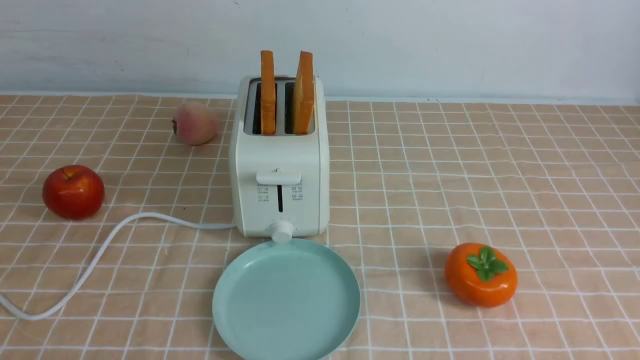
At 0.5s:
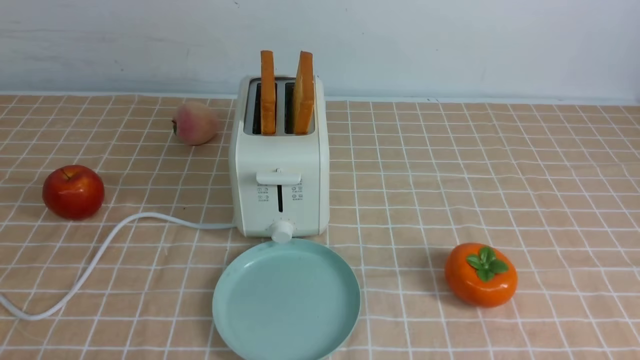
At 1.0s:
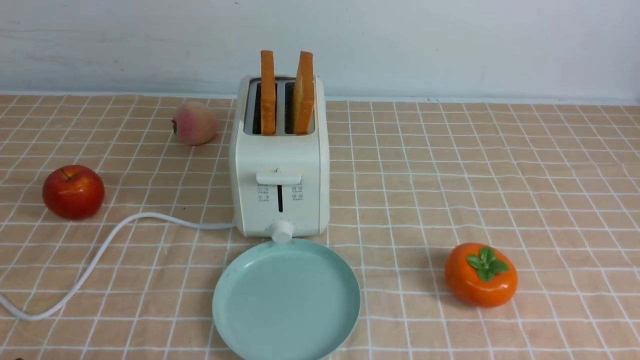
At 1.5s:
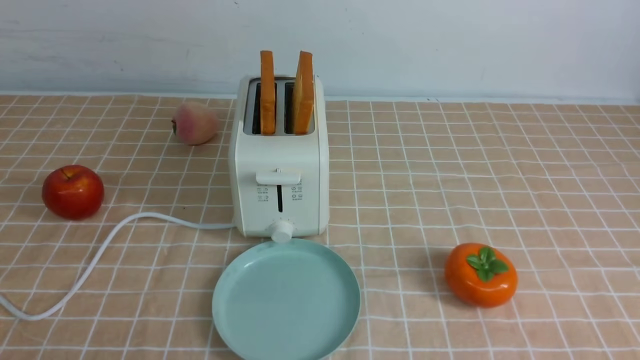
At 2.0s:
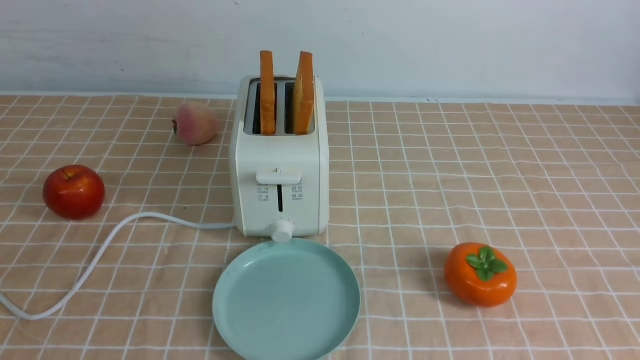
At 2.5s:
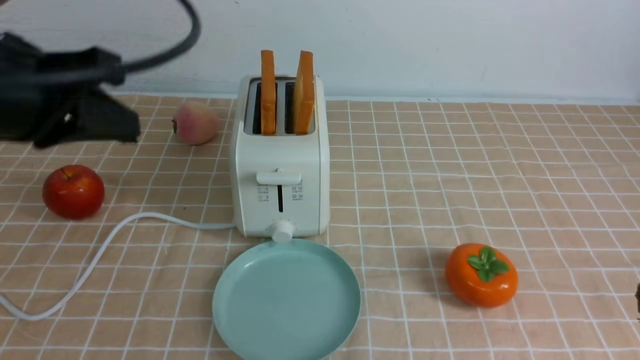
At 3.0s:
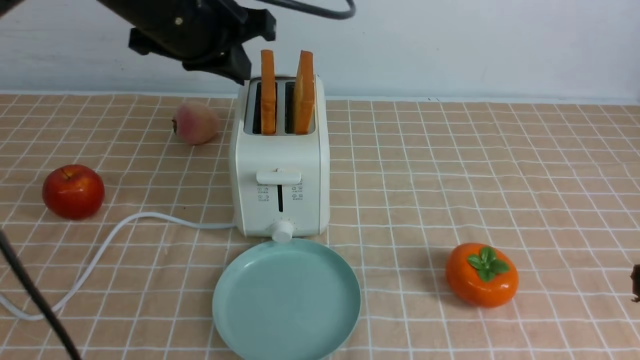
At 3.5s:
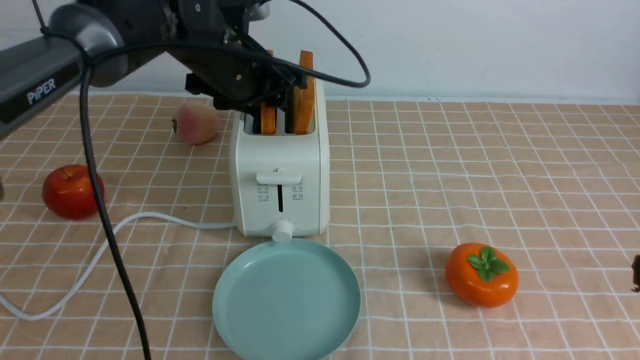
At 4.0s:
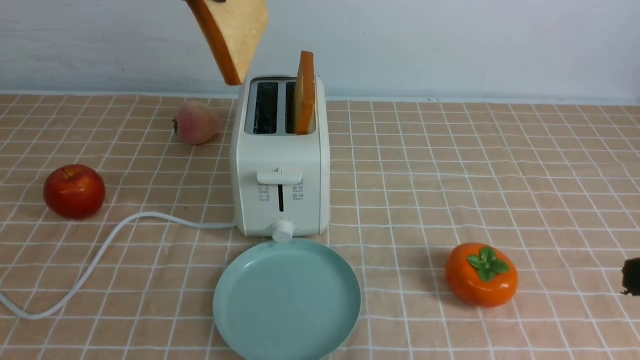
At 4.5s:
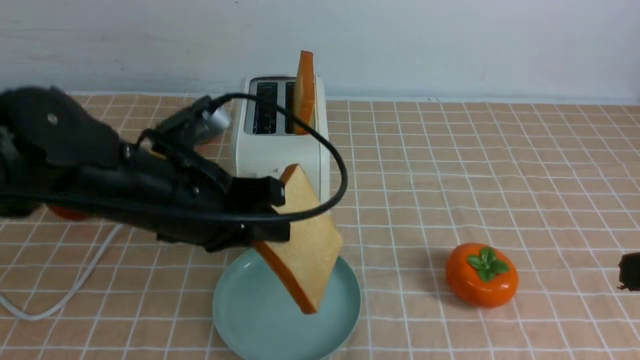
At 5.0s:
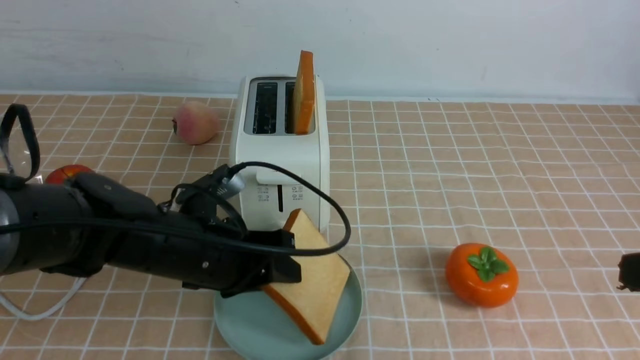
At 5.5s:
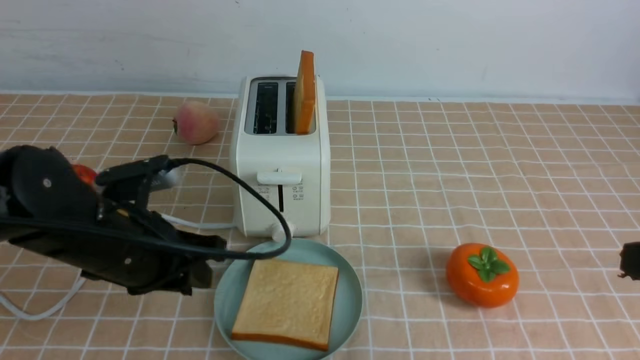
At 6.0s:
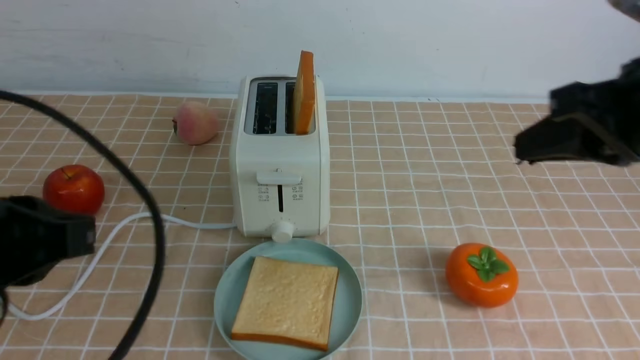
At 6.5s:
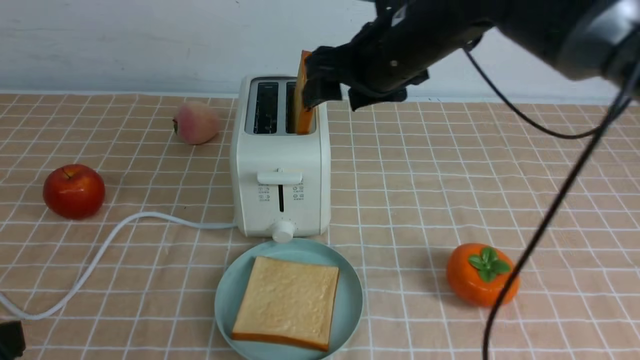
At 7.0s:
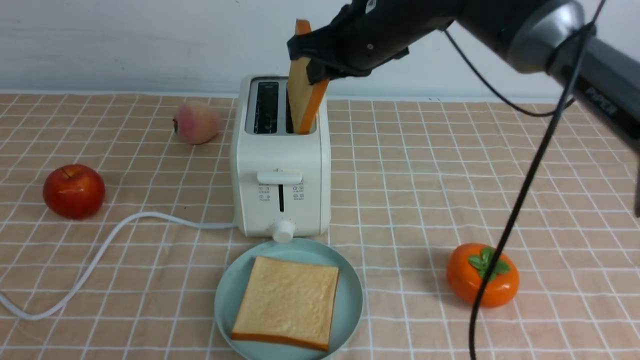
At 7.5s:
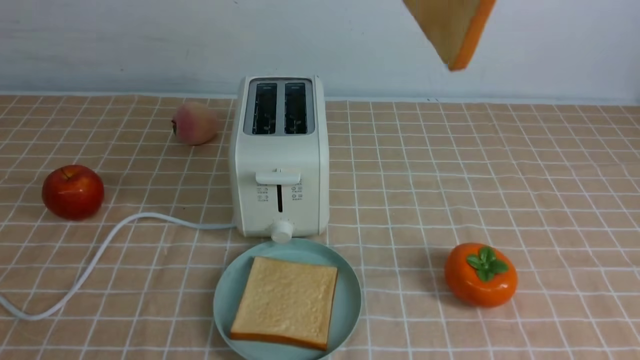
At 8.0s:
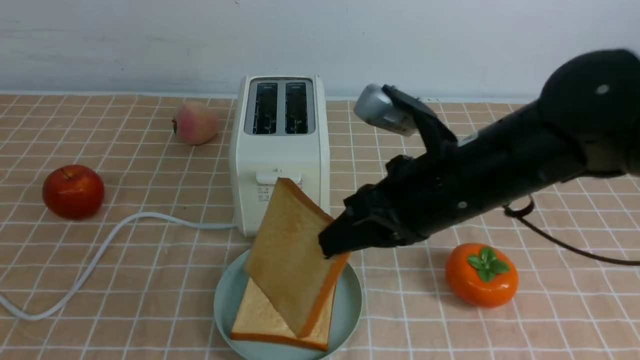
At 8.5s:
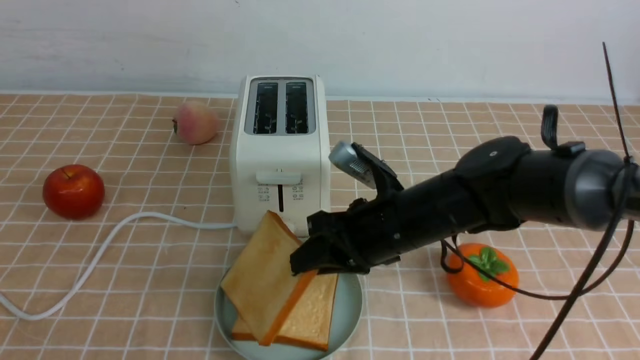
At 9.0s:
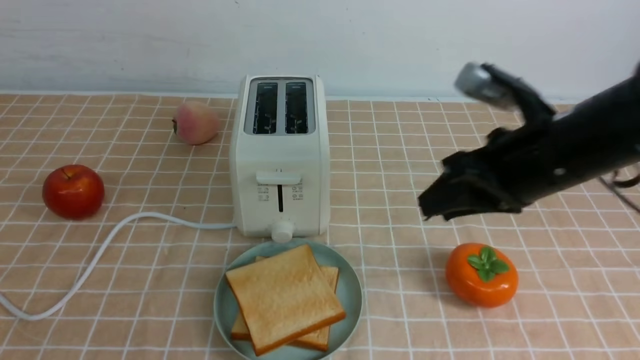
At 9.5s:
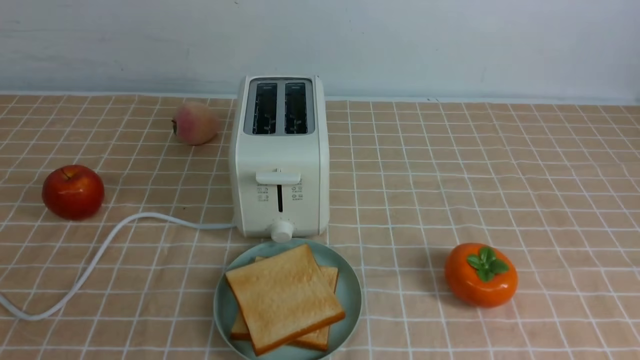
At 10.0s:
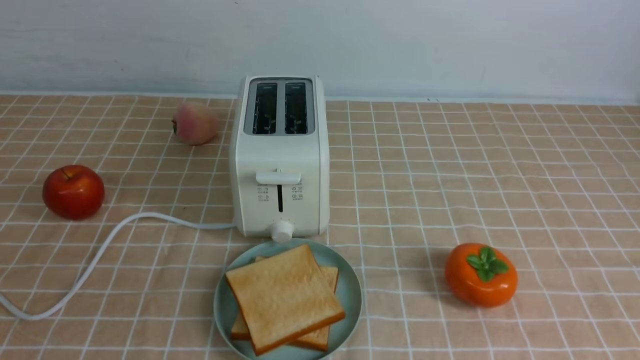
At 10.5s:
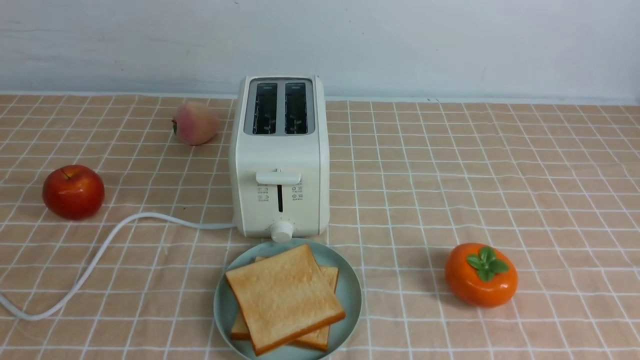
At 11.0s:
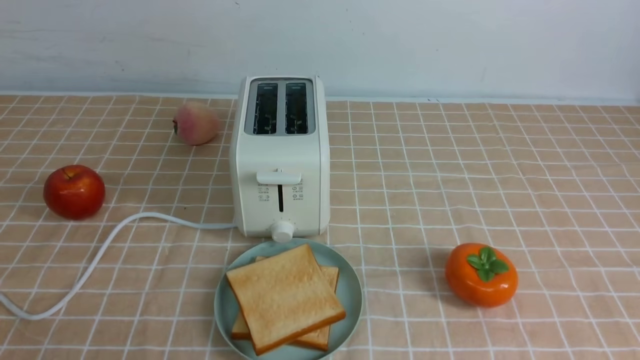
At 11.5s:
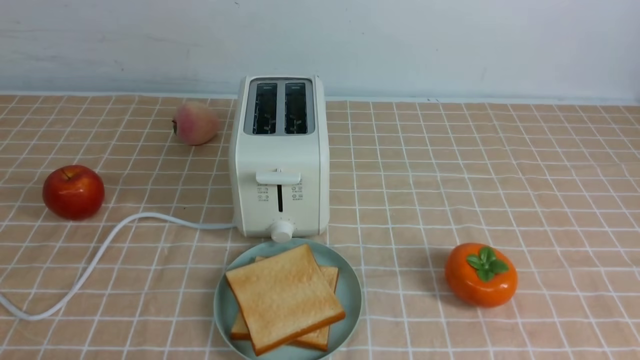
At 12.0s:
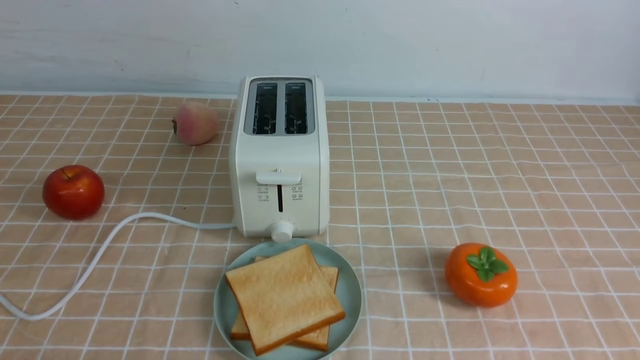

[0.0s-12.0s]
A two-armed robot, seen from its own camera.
Task of the whole recording: take toasted bread from bread machine on light coffee tablecloth place on plate.
Step, 0.0s to 3.5s: use the left arm to take out a slice of bread.
Step, 4.0s to 5.0s: use the left arm to put a slice of bread into the empty plate.
Step, 5.5s to 7.0s: use the right arm to take out a slice of bread.
Step, 7.5s to 8.5s: use the right arm to put a slice of bread into the plate.
2.0s to 4.0s: The right gripper shifts about 5 cm forward. The left gripper moves forward and to the right, some 30 cm, and opens.
4.0s to 6.0s: The left gripper travels backward, downward and to the left by about 25 cm, and closes, while the right gripper is displaced forward, upward and to the left by some 15 cm.
6.0s to 8.0s: The left gripper travels backward by roughly 10 cm. The right gripper swings up and down, roughly 20 cm each way, with 2 reversals, and opens, then closes once more.
8.0s to 10.0s: The right gripper travels backward and to the right by some 35 cm.
10.0s to 12.0s: The left gripper goes some 15 cm downward.

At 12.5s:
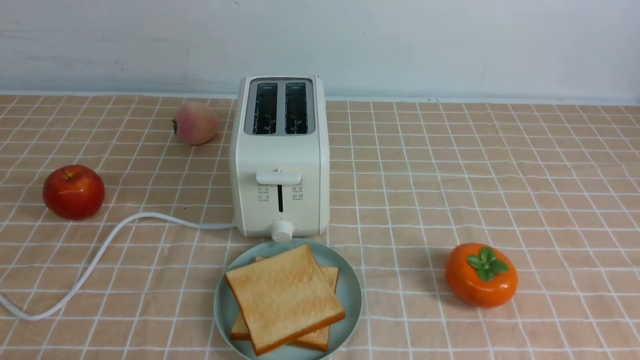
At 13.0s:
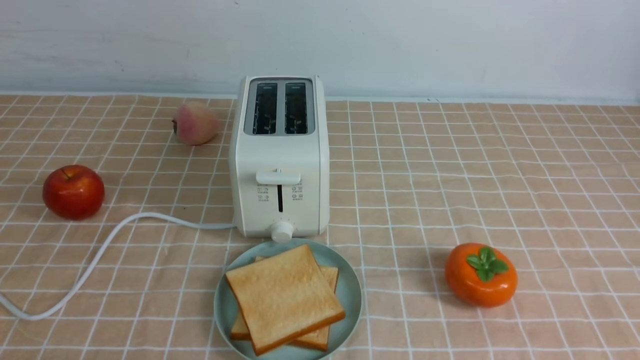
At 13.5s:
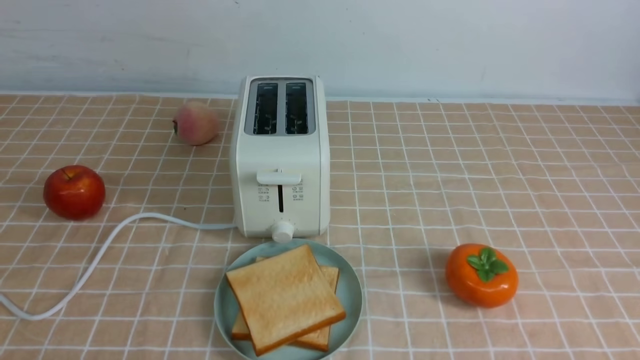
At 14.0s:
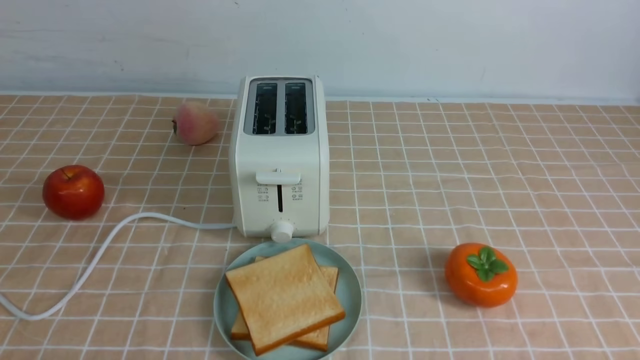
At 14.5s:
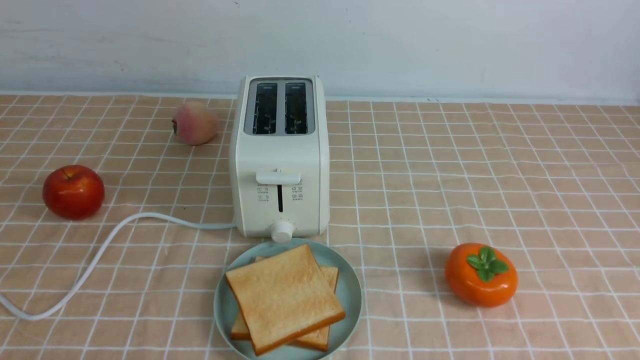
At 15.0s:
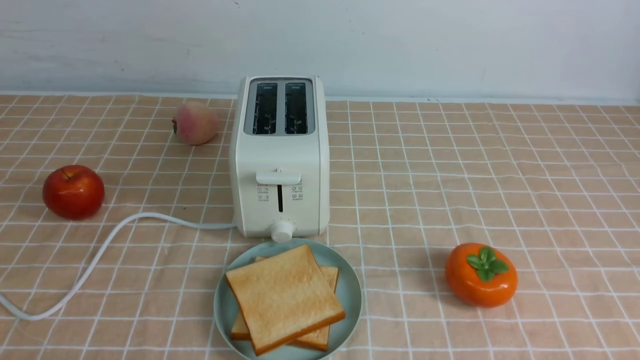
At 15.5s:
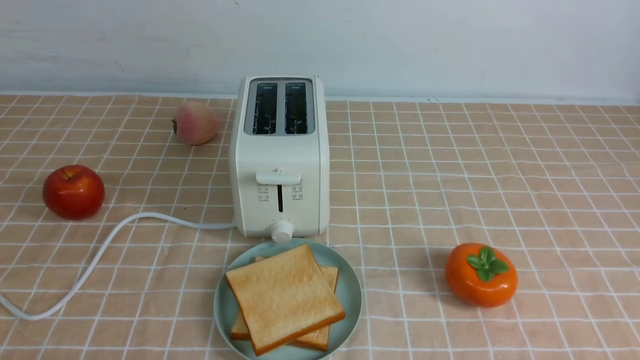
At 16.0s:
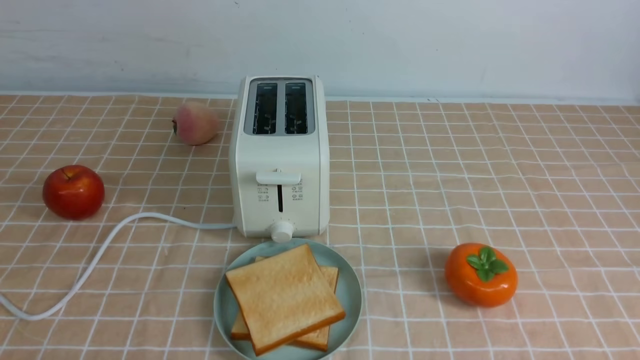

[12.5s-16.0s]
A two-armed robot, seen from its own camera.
Task of the whole recording: take toasted bread from bread machine on light coffee tablecloth place on plate.
14.5s to 16.0s: The two grippers keep their place.

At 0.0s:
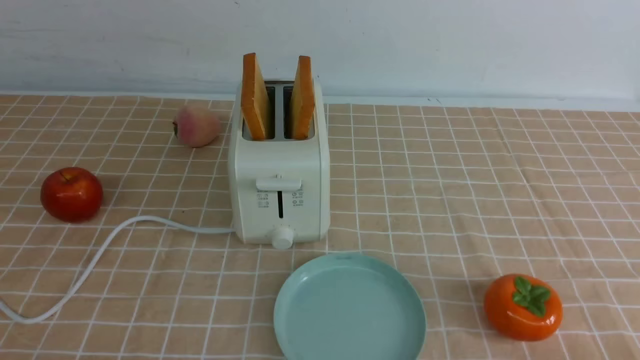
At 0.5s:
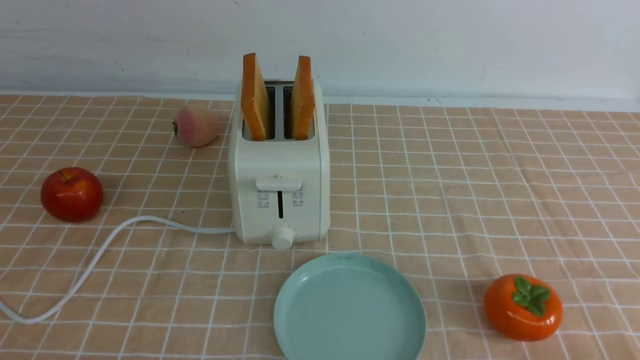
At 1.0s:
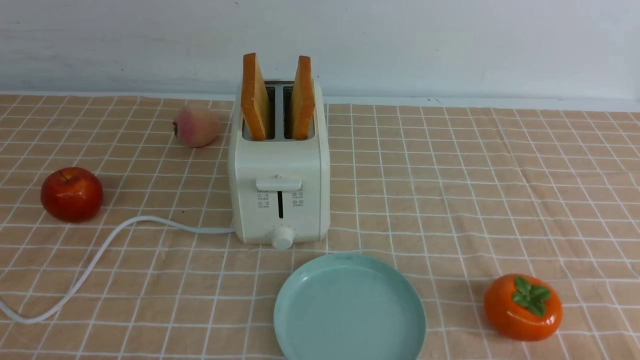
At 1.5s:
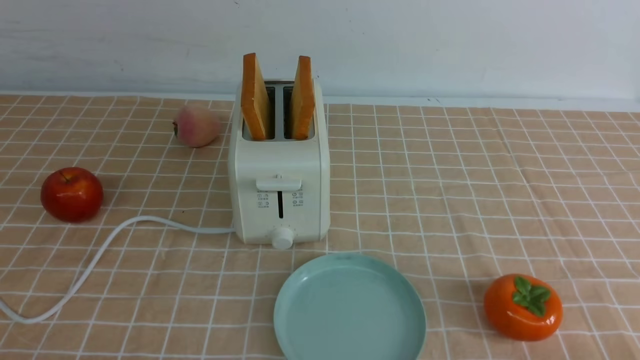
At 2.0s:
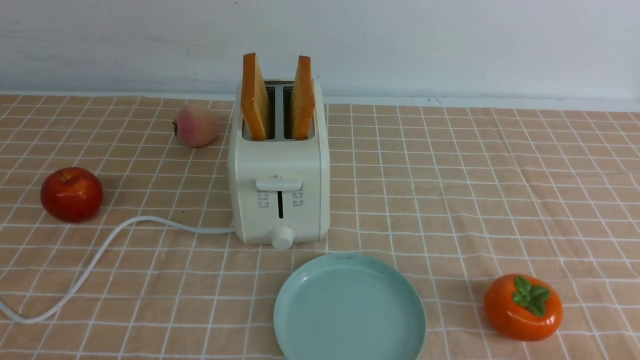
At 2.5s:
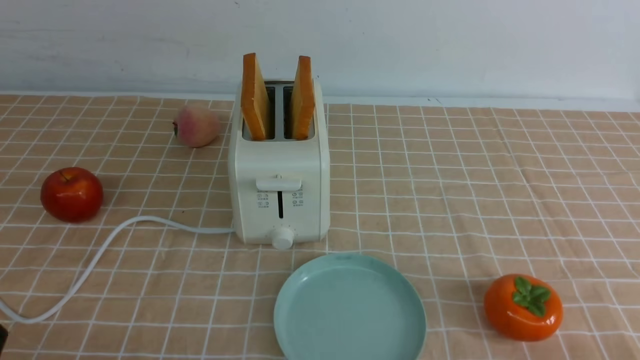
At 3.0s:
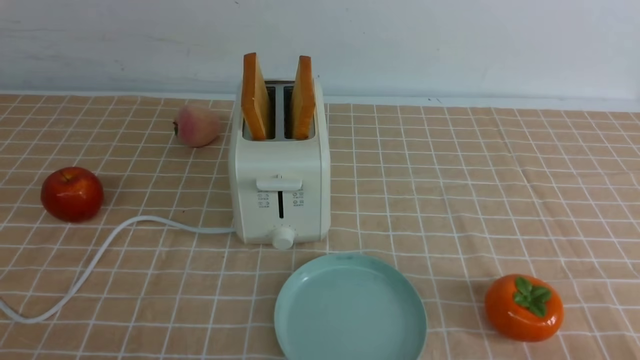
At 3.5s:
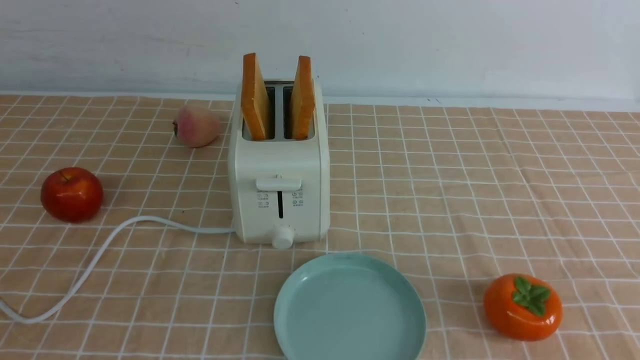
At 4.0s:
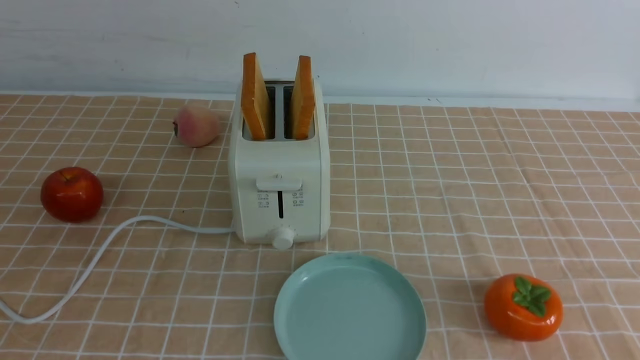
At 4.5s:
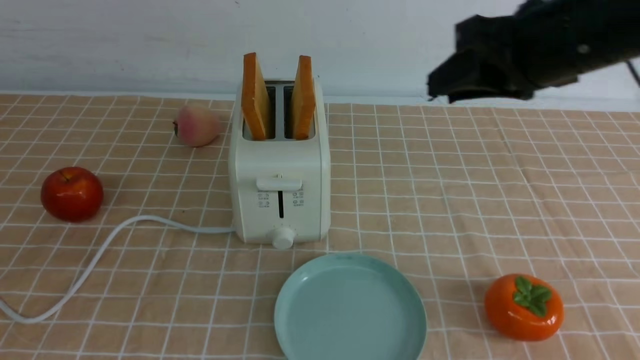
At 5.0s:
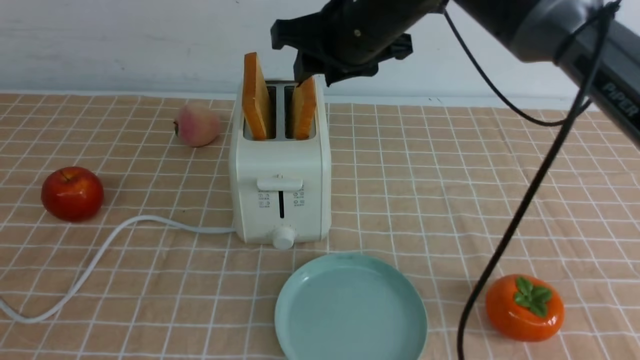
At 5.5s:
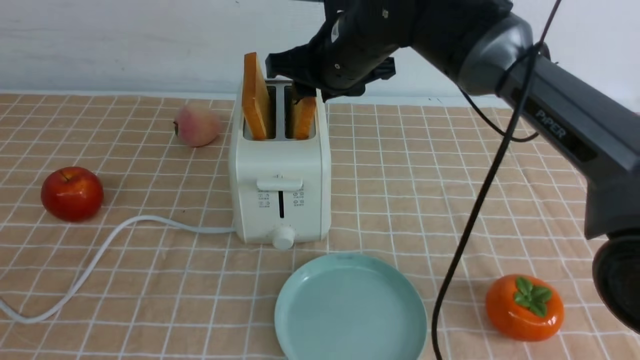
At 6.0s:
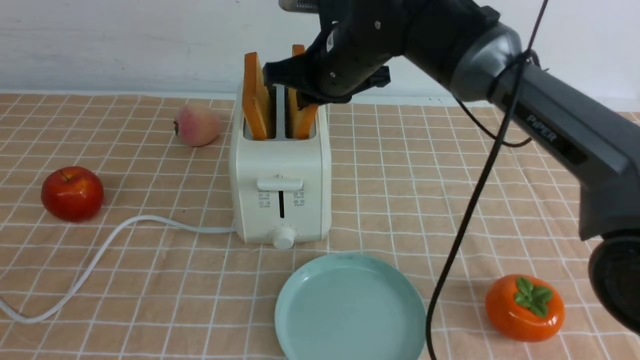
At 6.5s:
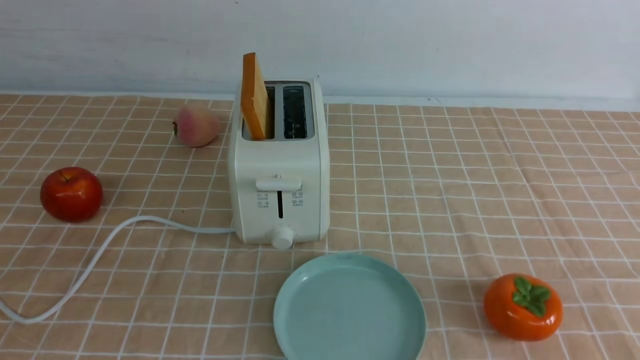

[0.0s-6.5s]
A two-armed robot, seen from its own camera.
Task of the whole recording: take toasted bread from bread machine on light coffee tablecloth place on plate.
Step, 0.0s to 6.0s: use the right arm to take out a slice of bread.
2.0s to 4.5s: The right gripper travels upward, forward and to the left by approximately 35 cm.
4.5s to 6.5s: The right gripper shifts roughly 15 cm to the left, upward and forward.
